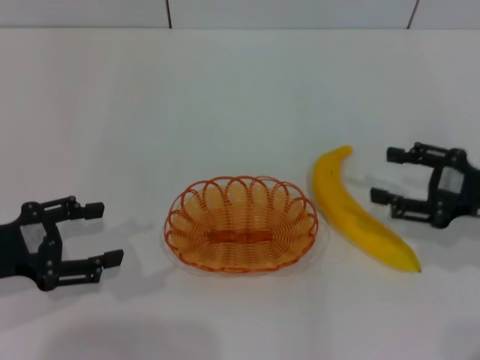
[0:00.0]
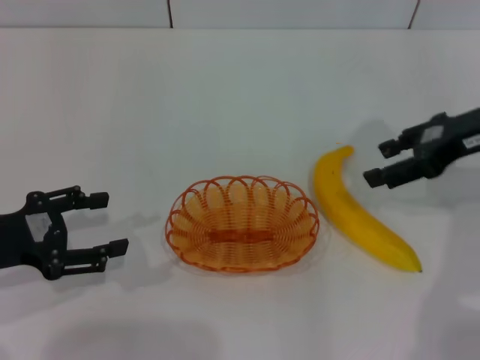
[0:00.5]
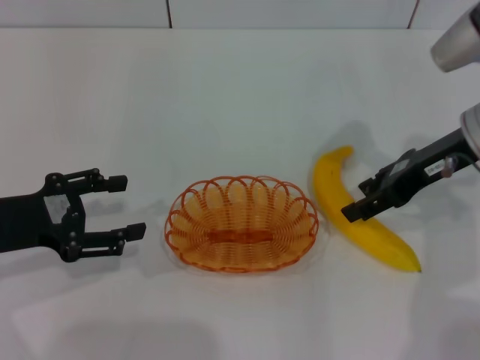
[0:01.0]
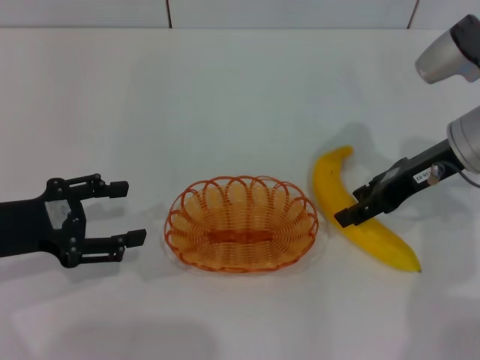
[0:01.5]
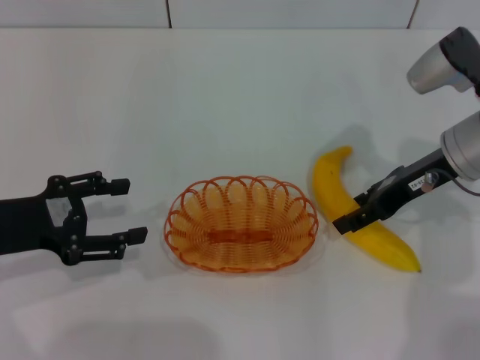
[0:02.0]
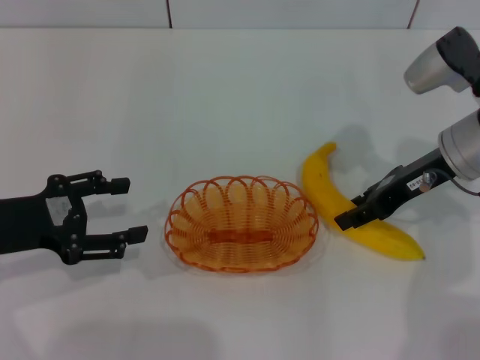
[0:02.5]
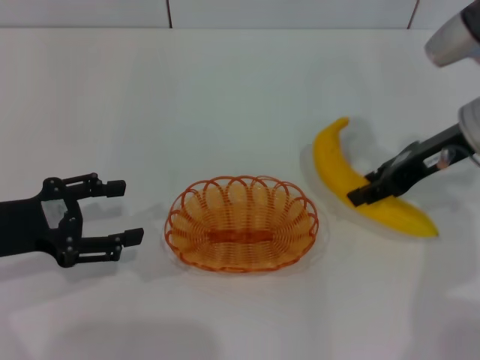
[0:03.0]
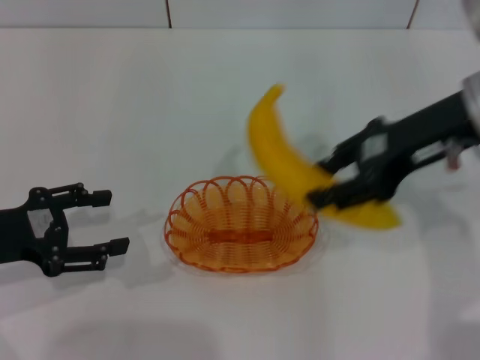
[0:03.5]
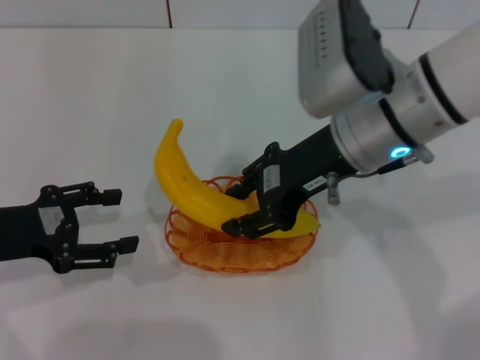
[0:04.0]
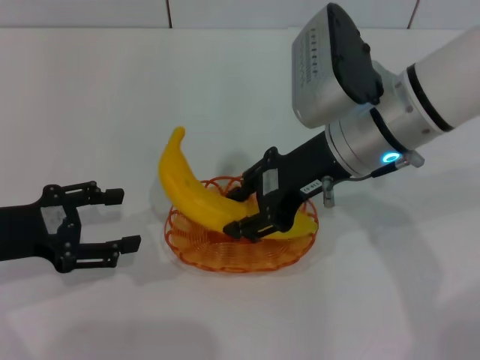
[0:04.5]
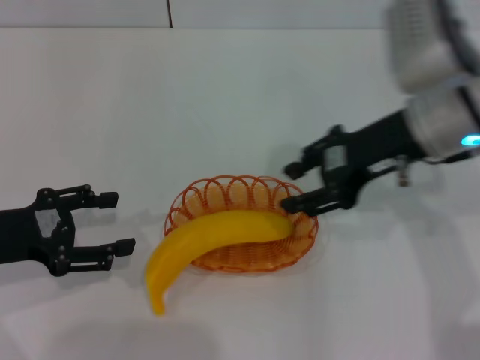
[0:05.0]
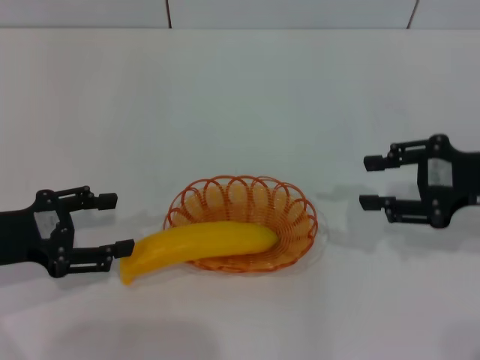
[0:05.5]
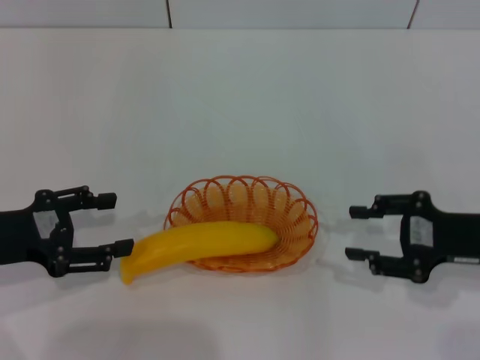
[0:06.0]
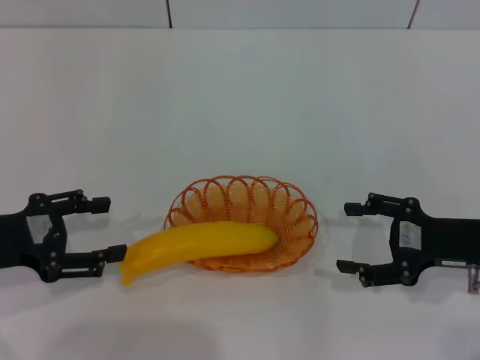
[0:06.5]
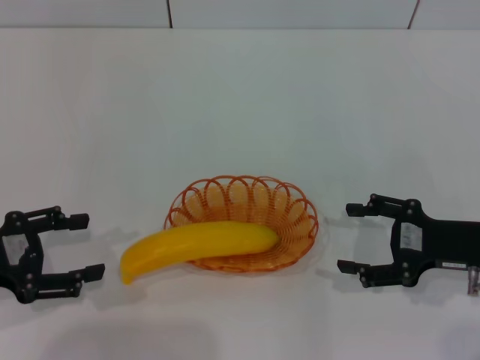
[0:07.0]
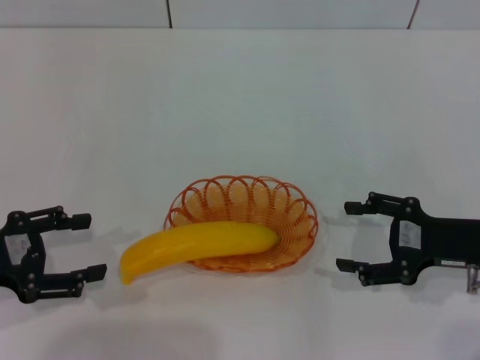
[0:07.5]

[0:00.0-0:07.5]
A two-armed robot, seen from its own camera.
Step, 0:00.0 to 0:03.0: Pick up the banana with the right gripper.
Step, 0:03.5 to 0:05.0: Place the banana into the basket with the right gripper.
0:00.0 to 0:02.0: The right gripper goes approximately 10 cm forward and to the left.
0:02.0 to 0:04.0: The right gripper shifts roughly 15 cm to the left and upward.
0:04.0 to 0:05.5: The right gripper travels to the right by roughly 20 cm.
0:05.5 to 0:07.5: The right gripper travels downward by roughly 10 cm, and opens.
